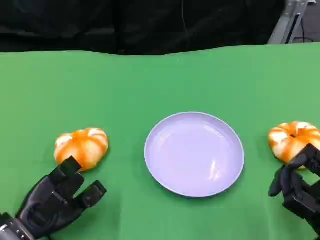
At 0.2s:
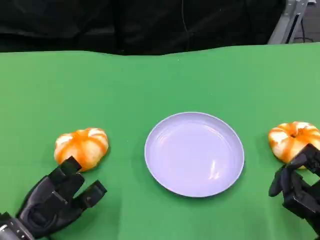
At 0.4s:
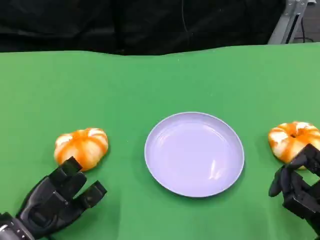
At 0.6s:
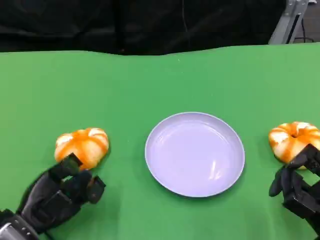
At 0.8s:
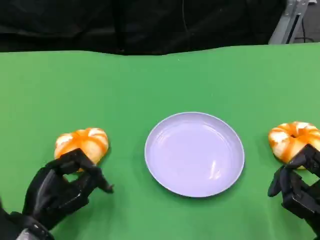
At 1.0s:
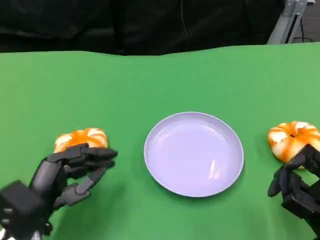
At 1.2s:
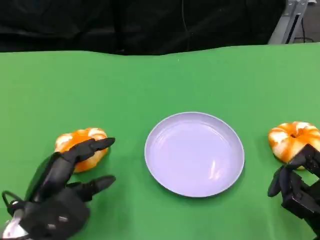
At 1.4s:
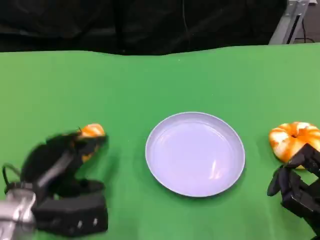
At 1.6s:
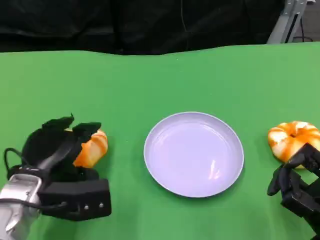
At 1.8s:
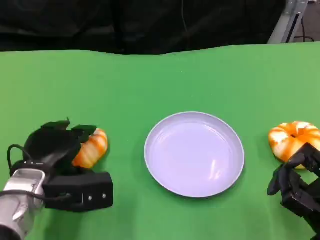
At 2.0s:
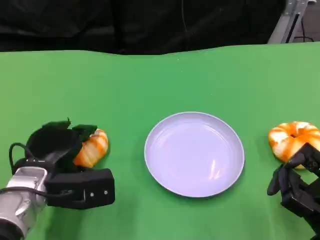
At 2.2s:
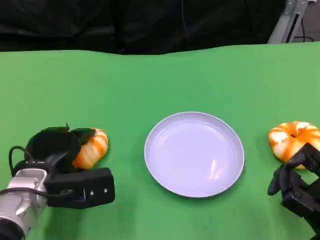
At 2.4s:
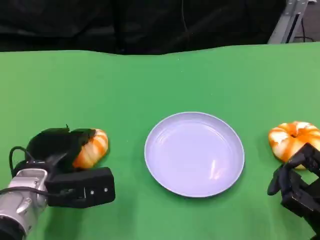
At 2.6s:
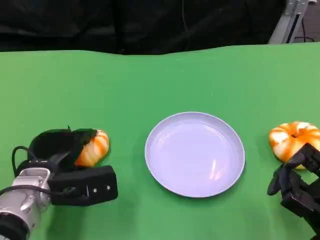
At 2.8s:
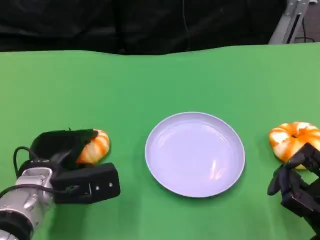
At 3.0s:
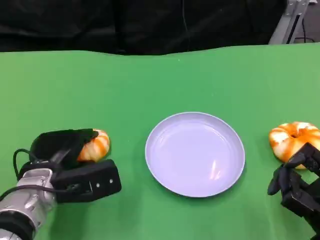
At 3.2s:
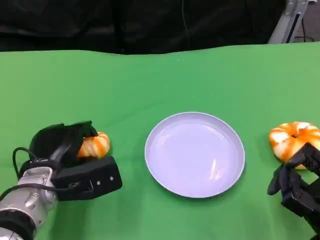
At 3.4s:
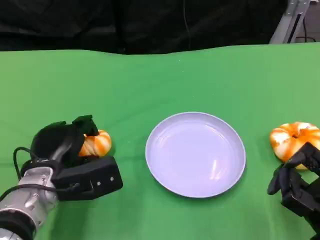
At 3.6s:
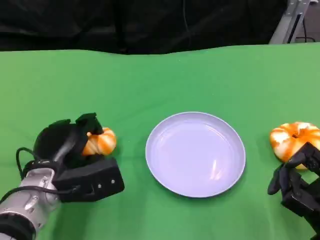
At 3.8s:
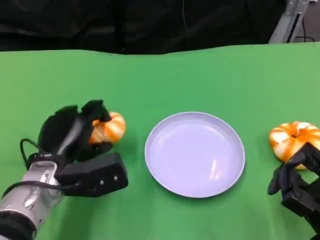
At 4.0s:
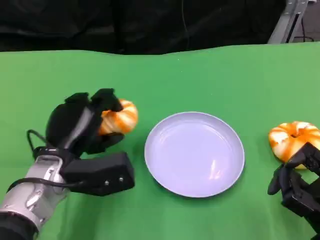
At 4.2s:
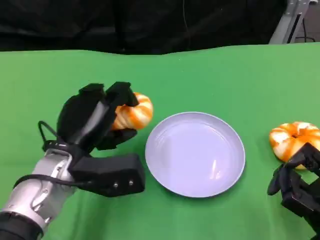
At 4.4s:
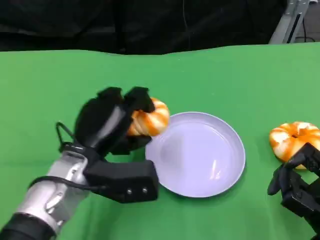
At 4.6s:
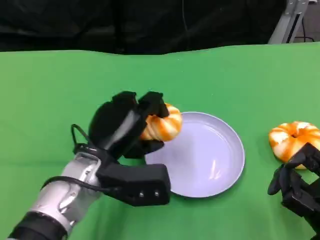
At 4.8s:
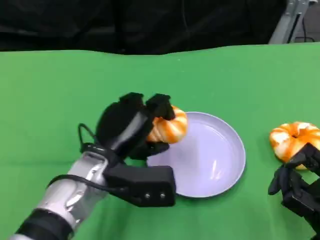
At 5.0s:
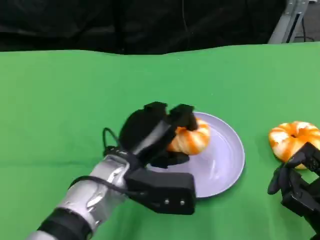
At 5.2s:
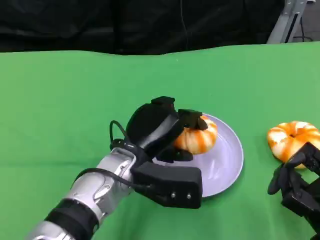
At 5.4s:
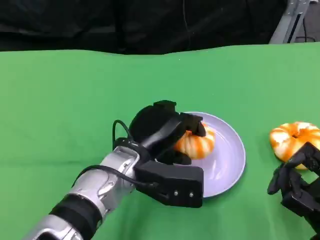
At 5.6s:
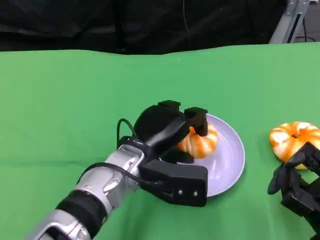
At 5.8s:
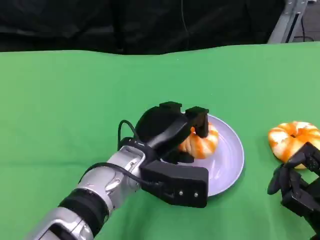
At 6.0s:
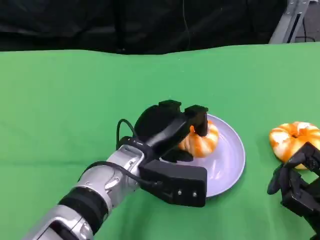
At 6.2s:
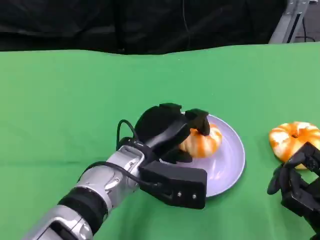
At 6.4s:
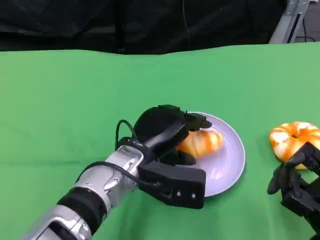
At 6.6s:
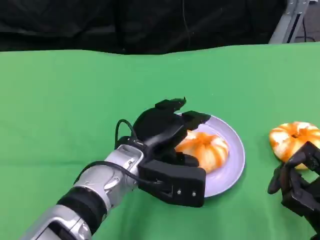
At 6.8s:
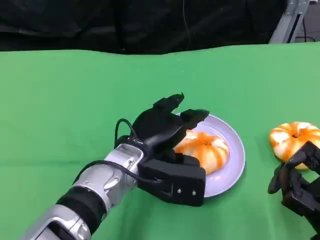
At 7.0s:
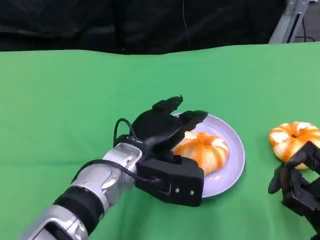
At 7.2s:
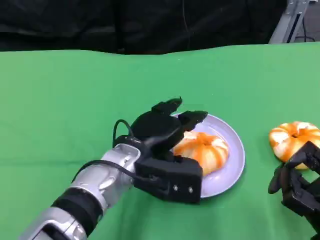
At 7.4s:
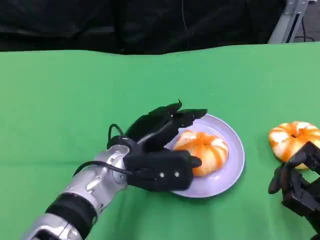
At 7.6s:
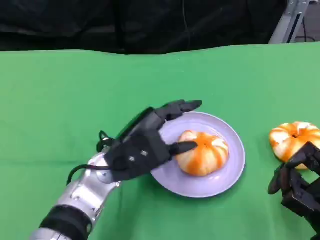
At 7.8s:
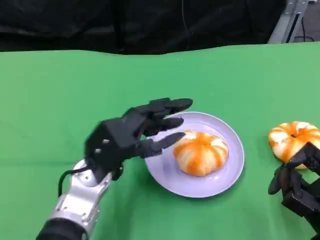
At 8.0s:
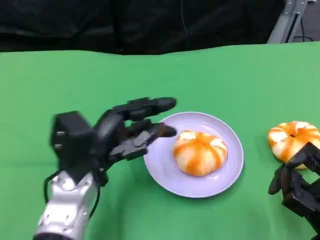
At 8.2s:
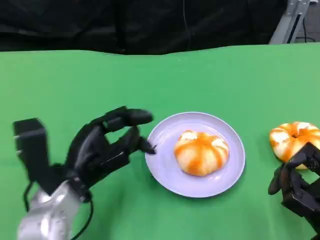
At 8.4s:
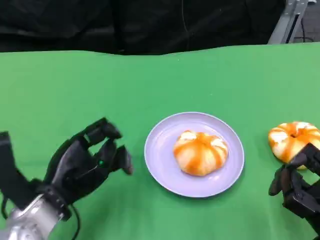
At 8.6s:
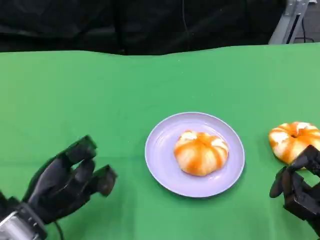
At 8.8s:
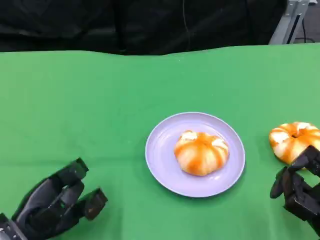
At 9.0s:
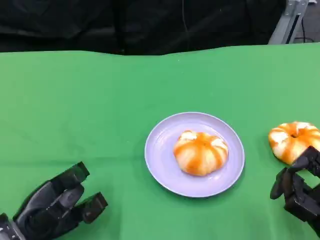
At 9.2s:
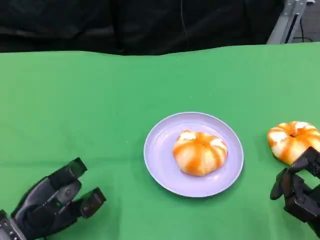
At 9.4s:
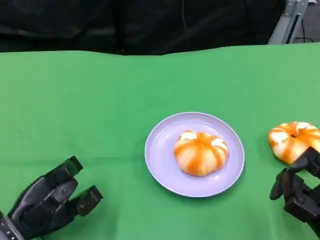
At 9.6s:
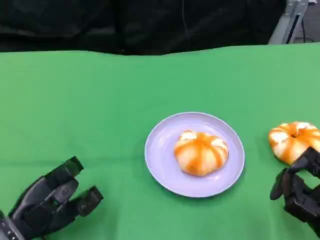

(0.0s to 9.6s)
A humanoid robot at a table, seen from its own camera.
Task of the whole recording: Grasp the bread from the table and place it into the plate.
0.0s - 1.6s: The left hand travels upward by roughly 5 cm.
1.6s - 3.2s: The hands move only a little.
3.2s - 4.8s: The left hand shifts some 10 cm to the right.
6.4s - 8.0s: The left hand moves to the left, some 10 cm.
8.0s - 9.6s: The left hand travels to the left and downward by about 15 cm.

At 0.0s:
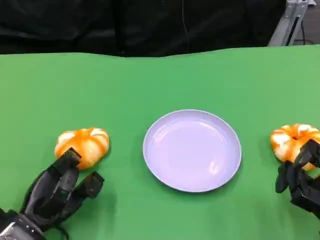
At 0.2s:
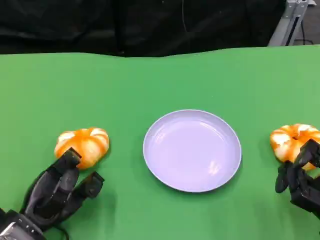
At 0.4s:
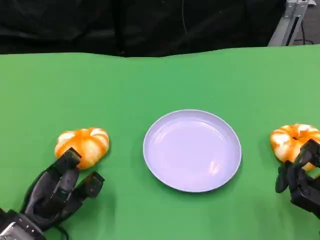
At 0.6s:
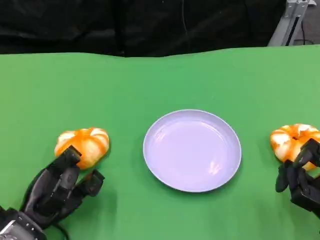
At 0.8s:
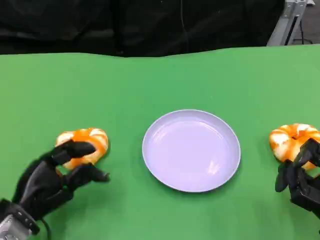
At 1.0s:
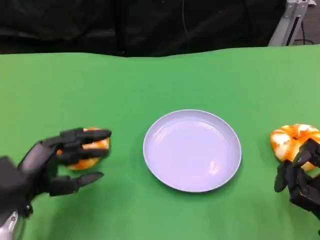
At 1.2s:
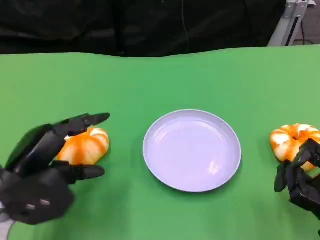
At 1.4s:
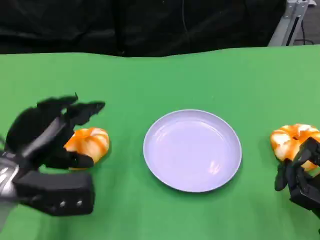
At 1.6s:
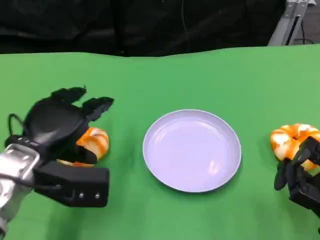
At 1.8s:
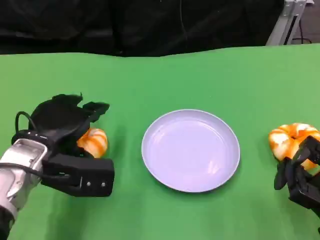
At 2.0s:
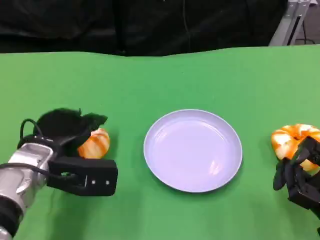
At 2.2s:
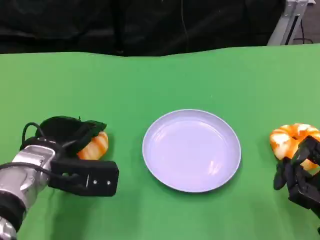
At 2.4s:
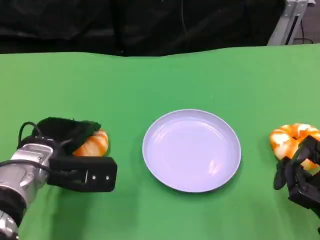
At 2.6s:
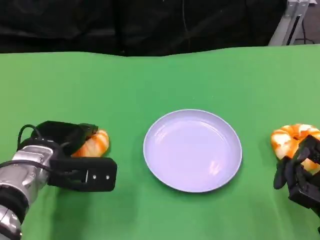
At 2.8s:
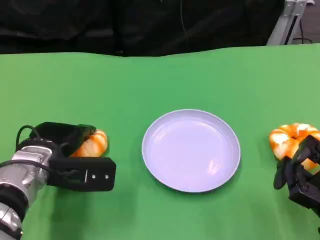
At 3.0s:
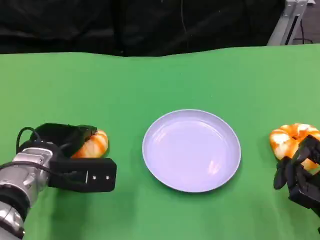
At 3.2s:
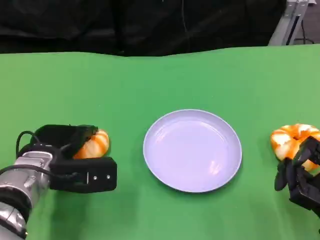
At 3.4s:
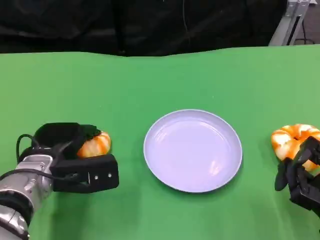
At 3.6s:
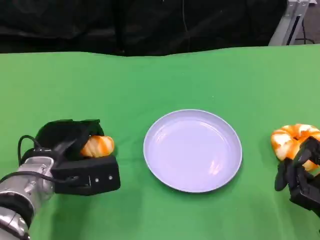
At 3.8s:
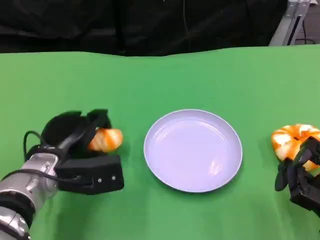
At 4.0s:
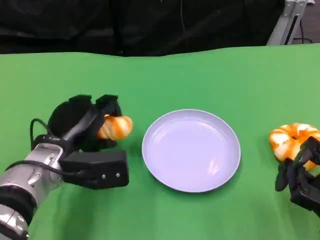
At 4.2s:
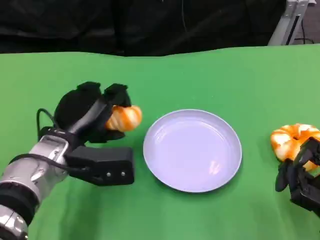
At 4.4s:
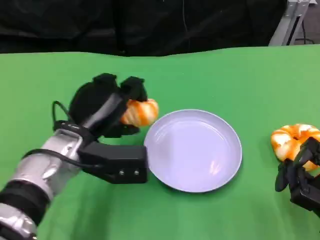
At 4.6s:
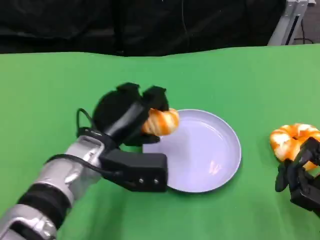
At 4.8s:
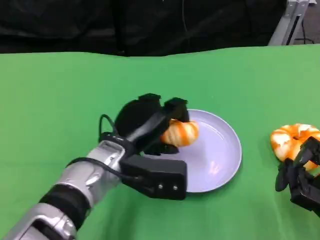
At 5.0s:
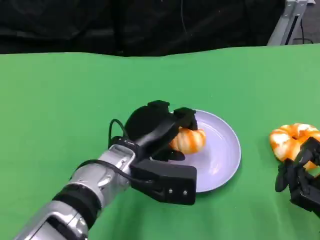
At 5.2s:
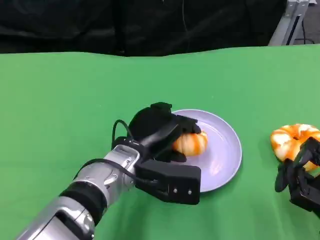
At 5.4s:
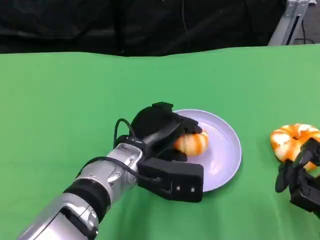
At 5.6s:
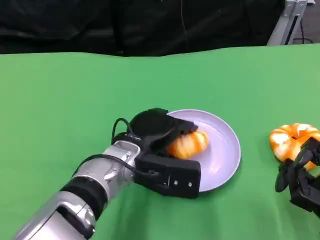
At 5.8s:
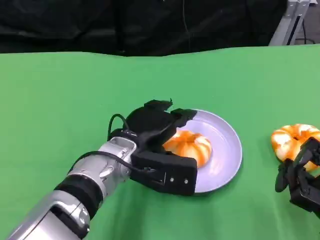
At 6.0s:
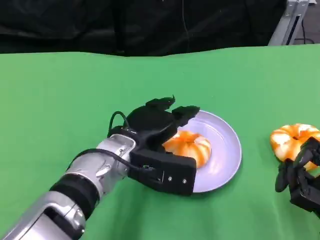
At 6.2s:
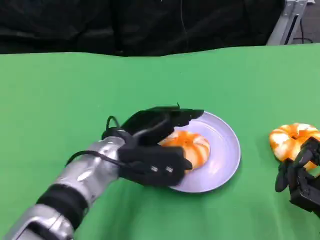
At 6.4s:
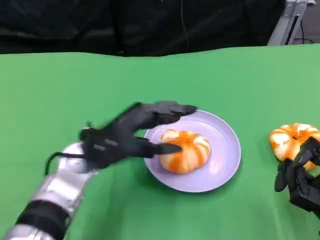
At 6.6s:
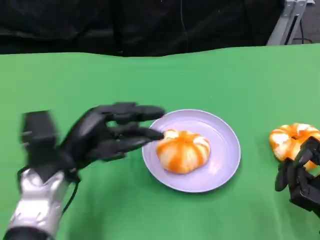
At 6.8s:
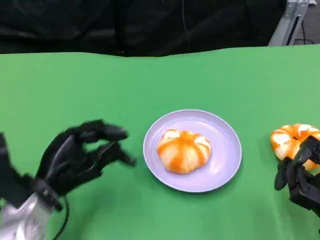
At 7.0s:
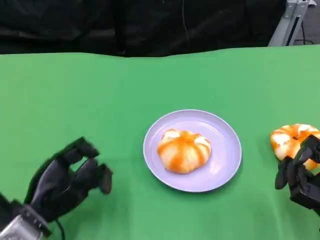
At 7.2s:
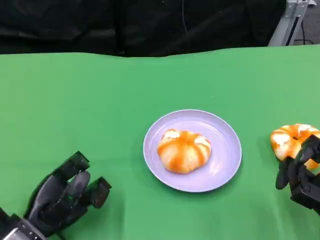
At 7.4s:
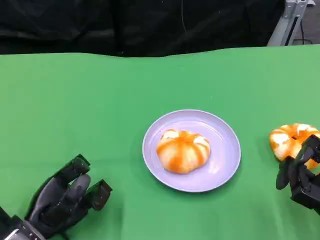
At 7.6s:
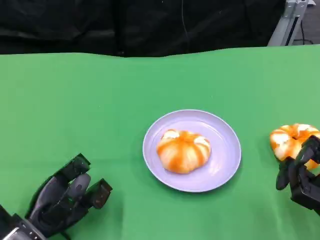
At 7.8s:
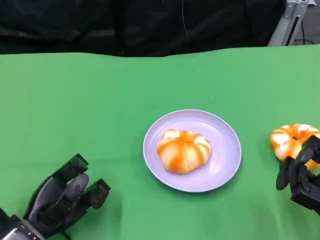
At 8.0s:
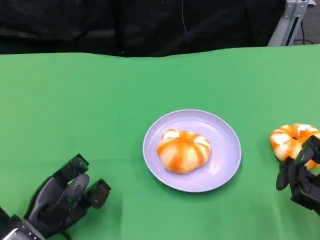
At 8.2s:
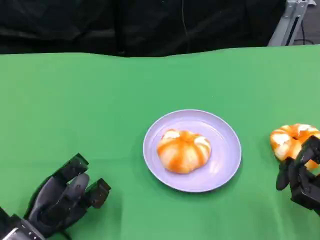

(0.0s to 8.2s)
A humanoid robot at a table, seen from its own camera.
Task of the whole recording: Grasp the bread from the table and place it into the plate.
0.0s - 1.6s: The left hand is displaced upward and forward by about 15 cm.
1.6s - 3.2s: The left hand heads downward, covering some 5 cm.
3.2s - 5.0s: The left hand is displaced to the right by roughly 15 cm.
5.0s - 6.6s: The left hand moves to the left, approximately 10 cm.
6.6s - 8.2s: The left hand goes approximately 10 cm downward and backward.

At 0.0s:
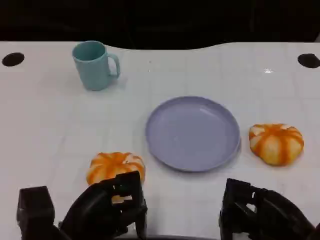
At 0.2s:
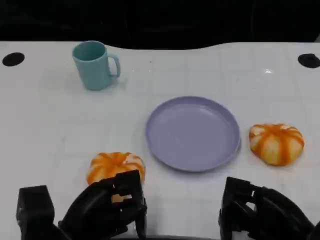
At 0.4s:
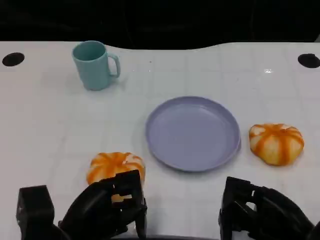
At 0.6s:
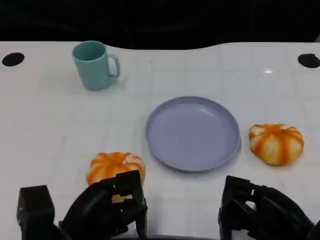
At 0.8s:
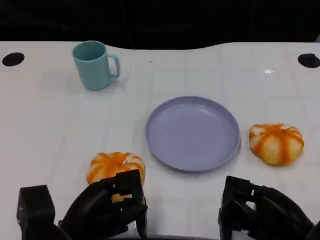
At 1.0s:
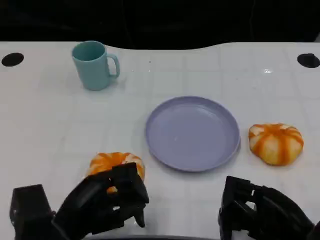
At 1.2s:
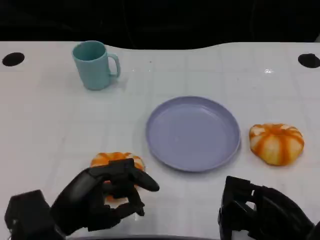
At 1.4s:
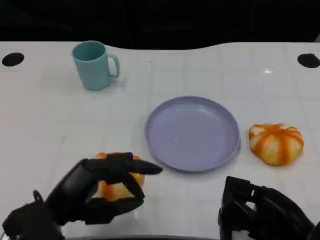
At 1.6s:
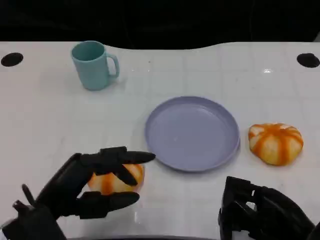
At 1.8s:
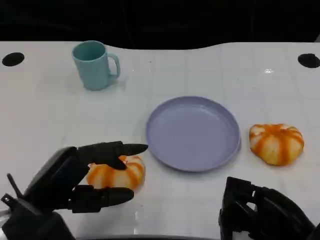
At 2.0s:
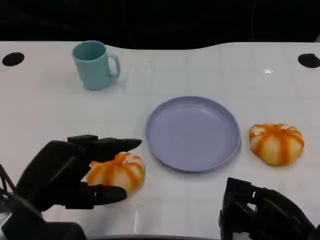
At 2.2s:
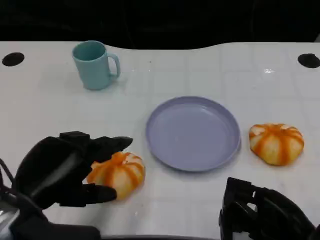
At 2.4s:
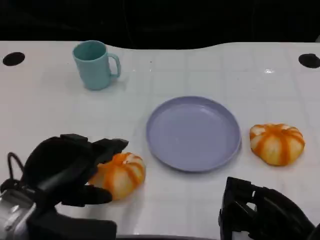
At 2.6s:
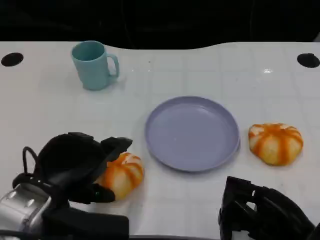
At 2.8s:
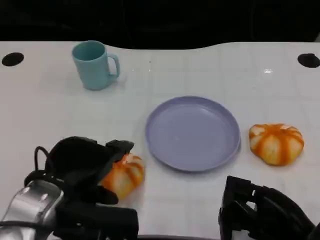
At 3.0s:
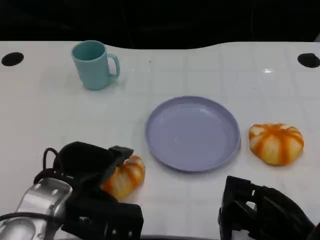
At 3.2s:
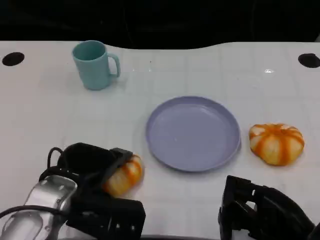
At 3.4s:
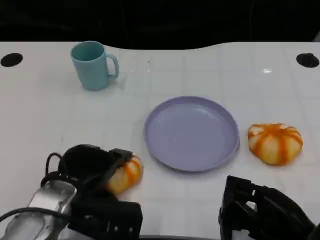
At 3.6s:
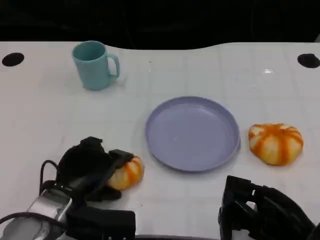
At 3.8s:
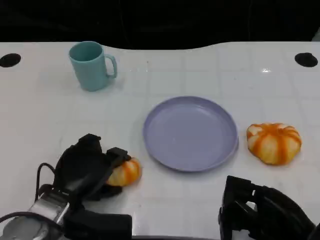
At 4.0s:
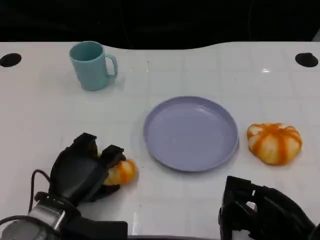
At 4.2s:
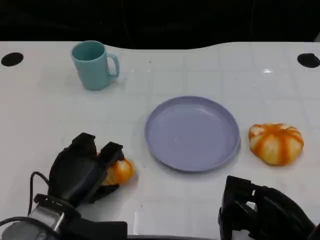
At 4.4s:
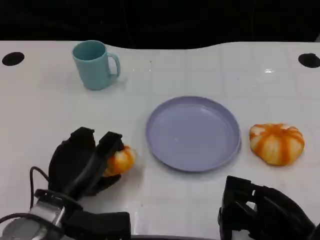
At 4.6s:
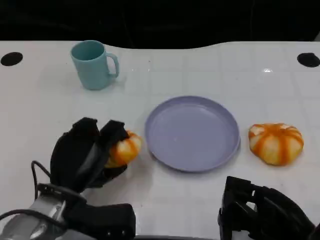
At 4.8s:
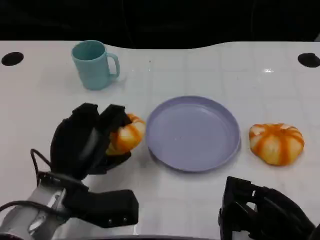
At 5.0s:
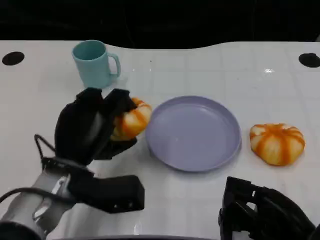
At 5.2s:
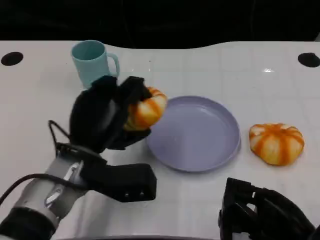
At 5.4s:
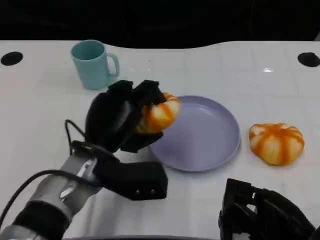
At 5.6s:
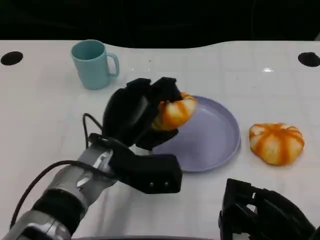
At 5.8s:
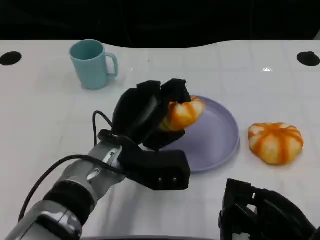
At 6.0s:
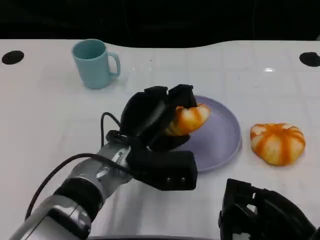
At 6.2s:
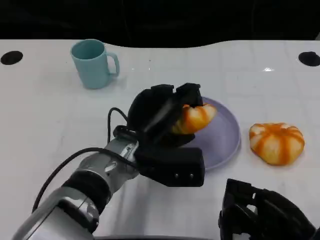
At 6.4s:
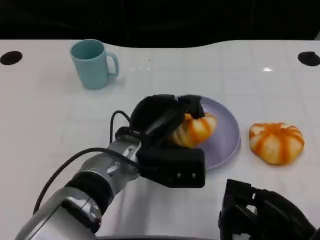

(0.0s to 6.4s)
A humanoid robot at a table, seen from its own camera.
Task of the whole recording: Grasp the bread from the table and place it into the plate.
0.0s - 1.6s: The left hand shifts by approximately 5 cm.
1.6s - 3.2s: The left hand ends up roughly 5 cm from where it was.
4.8s - 6.4s: The left hand heads to the right, covering some 10 cm.
